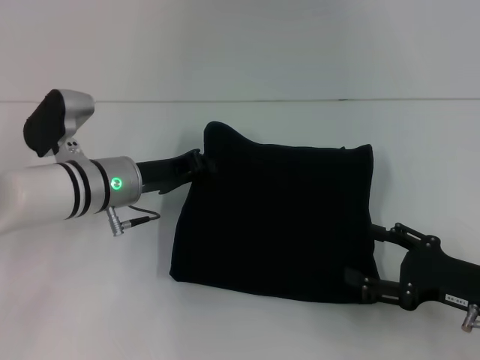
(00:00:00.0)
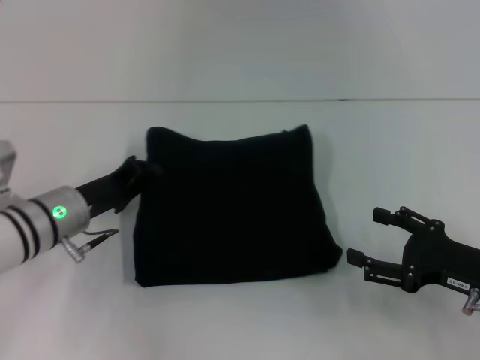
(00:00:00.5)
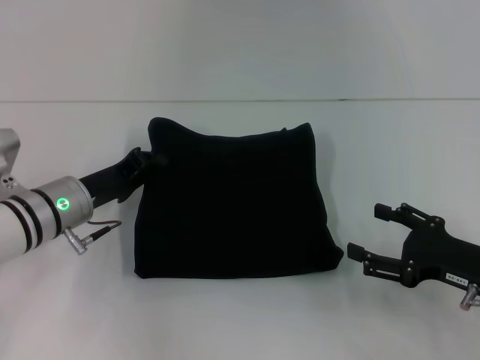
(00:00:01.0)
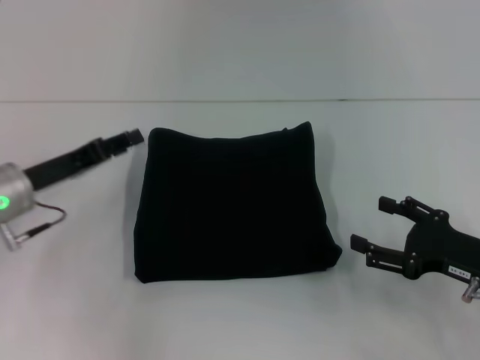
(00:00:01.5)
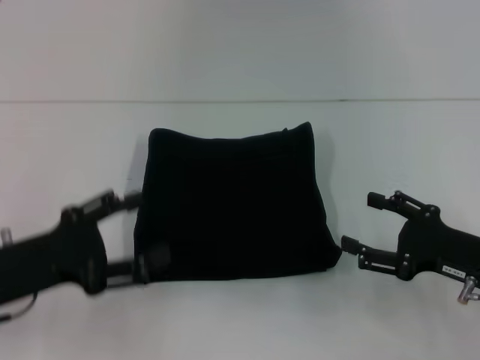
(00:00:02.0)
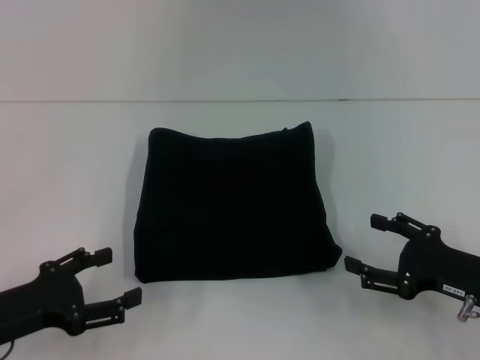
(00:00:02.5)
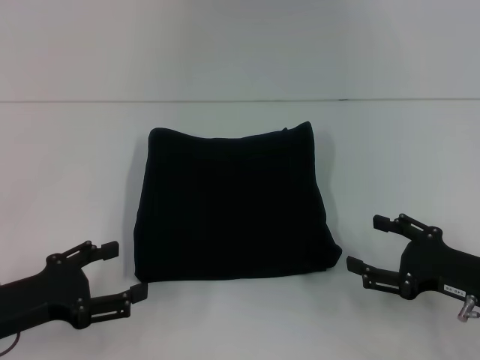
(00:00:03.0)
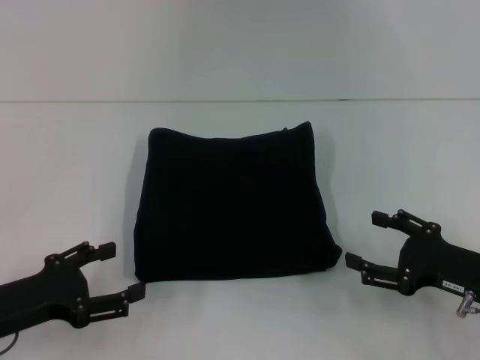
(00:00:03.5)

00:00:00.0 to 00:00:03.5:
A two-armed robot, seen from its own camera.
00:00:00.0 to 00:00:02.0: The left gripper travels backward and to the left by approximately 15 cm, and opens its fingers.
00:00:02.0 to 00:00:03.5: The grippers stay close to where they were, moving slightly.

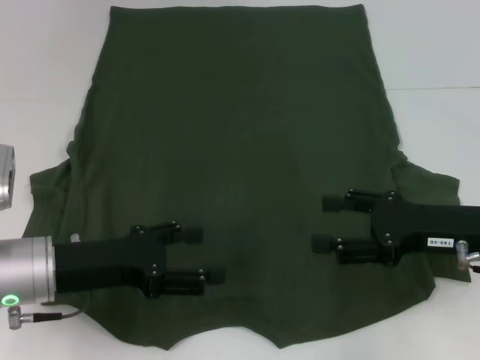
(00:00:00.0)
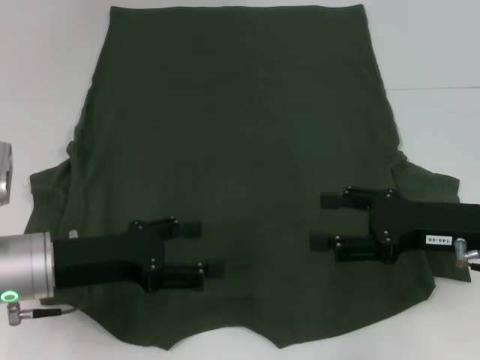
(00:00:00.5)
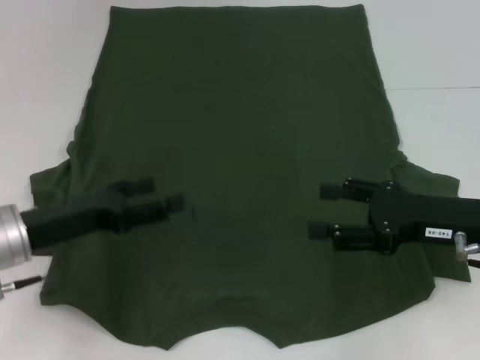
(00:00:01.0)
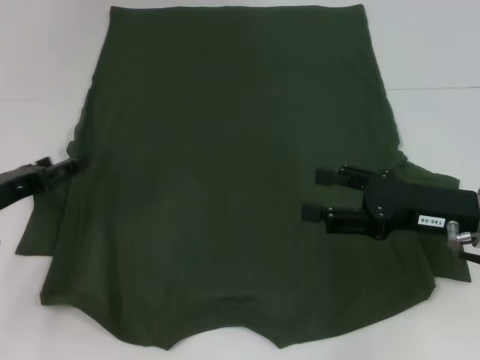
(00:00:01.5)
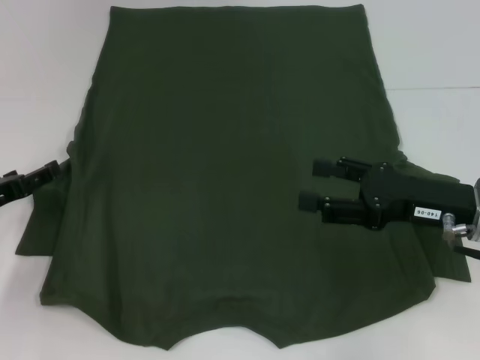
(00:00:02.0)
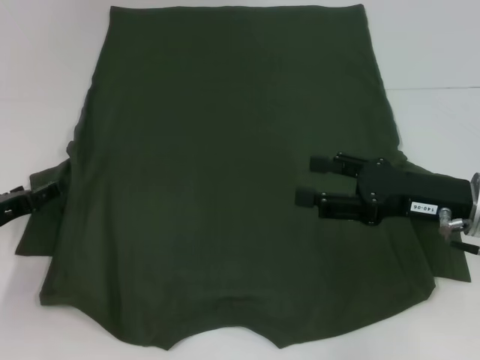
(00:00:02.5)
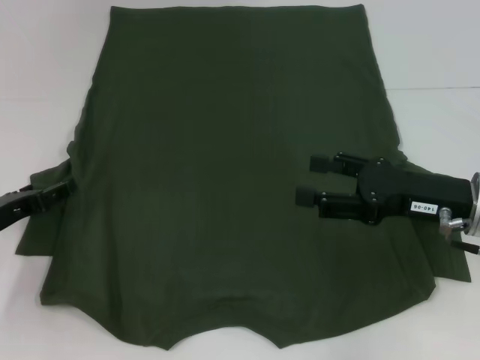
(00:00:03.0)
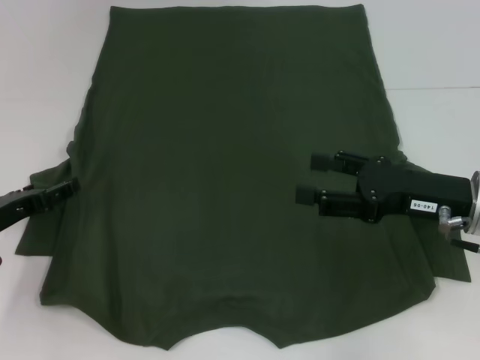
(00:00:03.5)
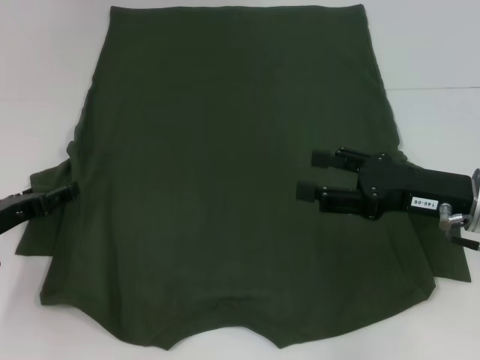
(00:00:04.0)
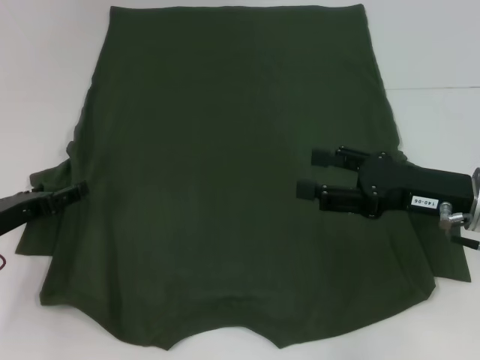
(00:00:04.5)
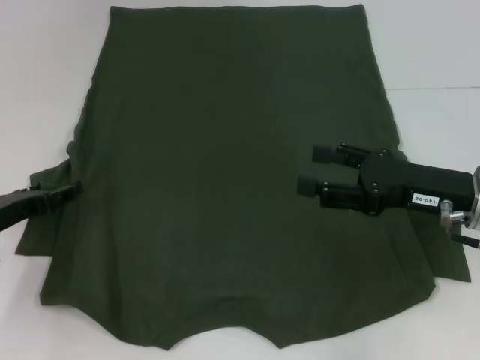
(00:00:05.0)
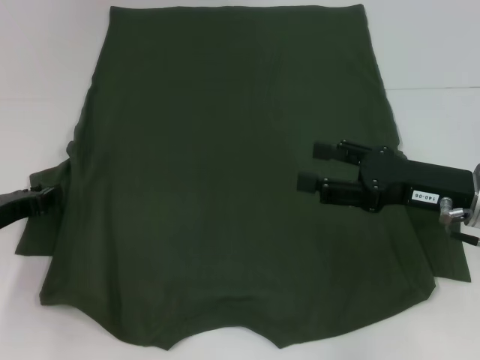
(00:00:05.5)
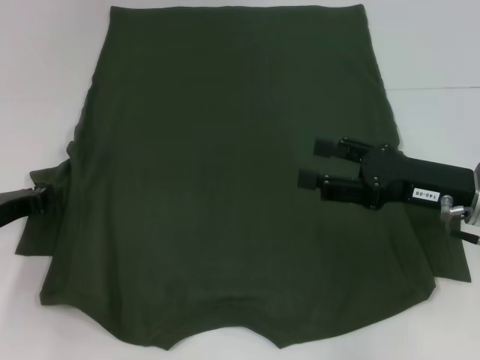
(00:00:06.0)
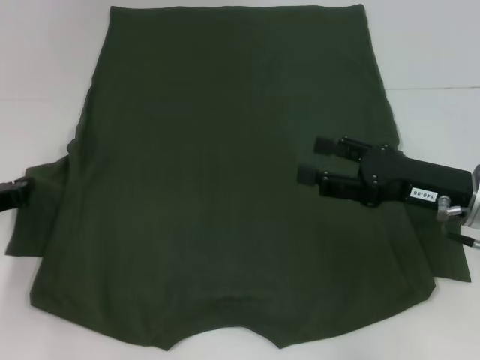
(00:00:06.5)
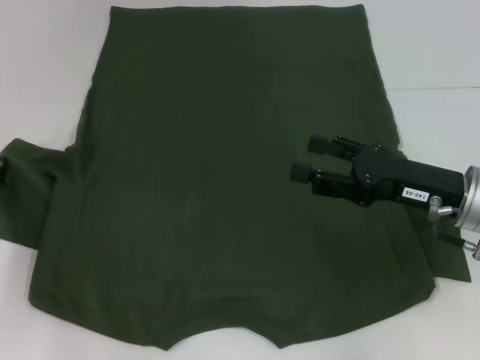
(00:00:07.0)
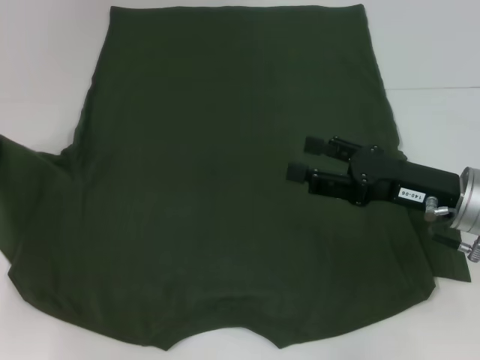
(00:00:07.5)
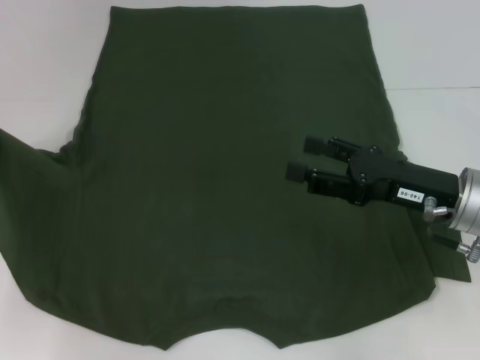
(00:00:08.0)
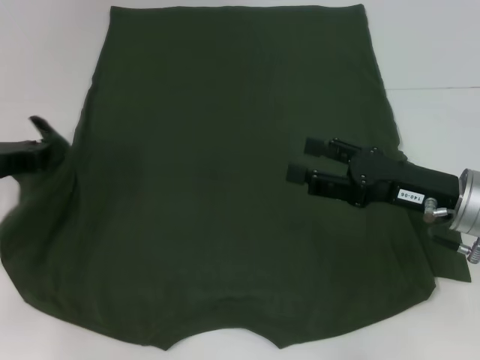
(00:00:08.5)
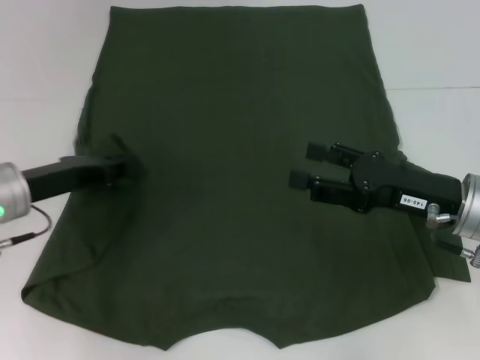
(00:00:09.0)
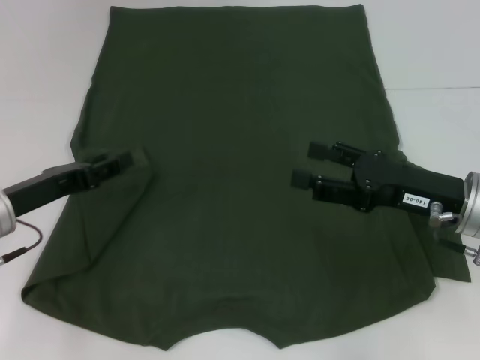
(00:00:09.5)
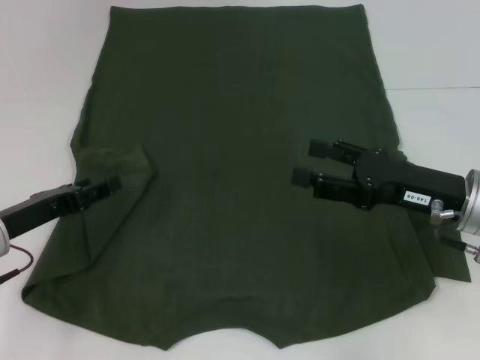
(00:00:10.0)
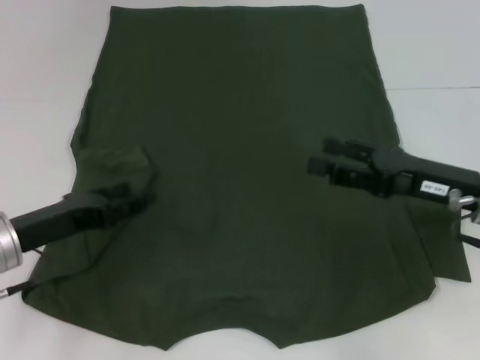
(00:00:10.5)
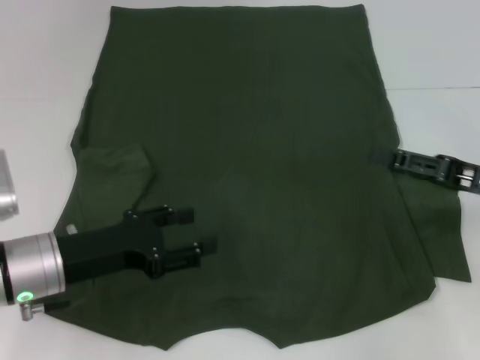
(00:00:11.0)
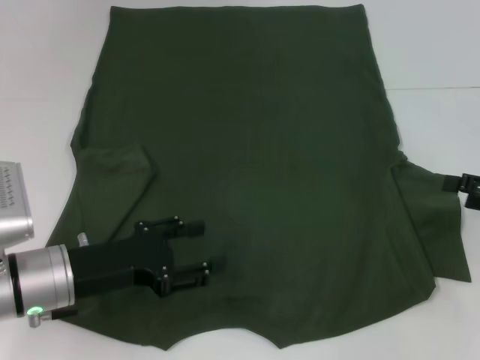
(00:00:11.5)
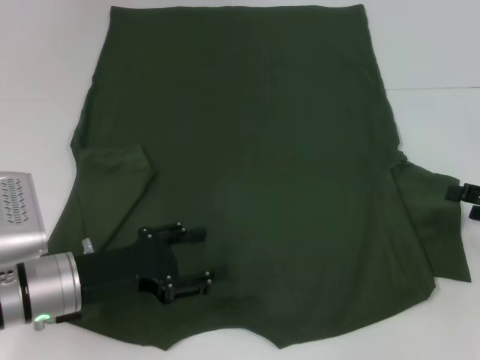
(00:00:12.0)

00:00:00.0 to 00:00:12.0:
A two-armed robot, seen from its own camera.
Step, 00:00:00.0 to 00:00:09.0: Fold the bottom left sleeve with your left hand.
00:00:00.0 to 00:00:02.0: The left gripper travels to the left by roughly 10 cm.
00:00:02.0 to 00:00:04.0: The grippers stay close to where they were, moving slightly.
00:00:04.0 to 00:00:06.0: The left gripper closes.
00:00:06.0 to 00:00:08.0: The left gripper moves approximately 5 cm.
00:00:08.0 to 00:00:10.0: The left gripper is displaced to the right and backward by roughly 10 cm, and opens its fingers.
00:00:10.0 to 00:00:12.0: The left gripper is displaced to the right by about 5 cm, while the right gripper travels to the right by some 15 cm.

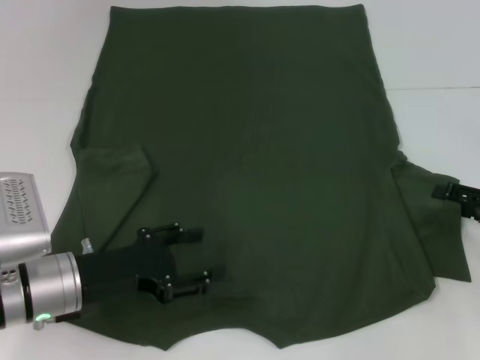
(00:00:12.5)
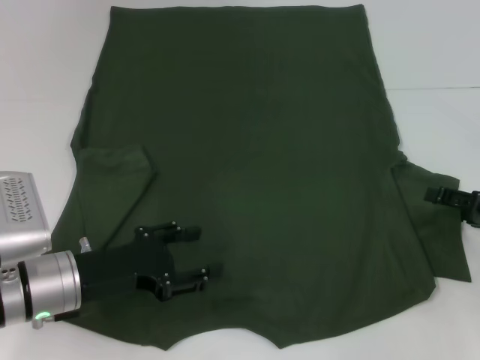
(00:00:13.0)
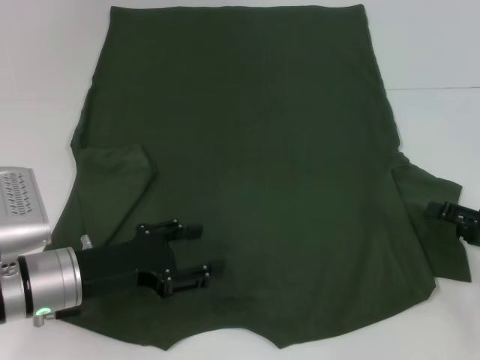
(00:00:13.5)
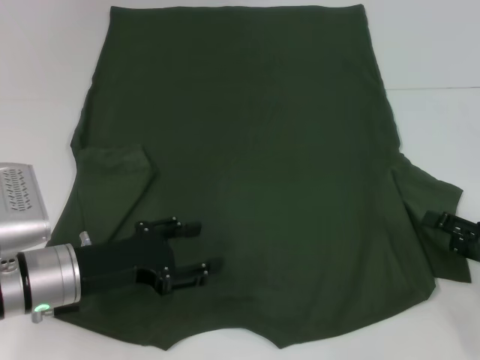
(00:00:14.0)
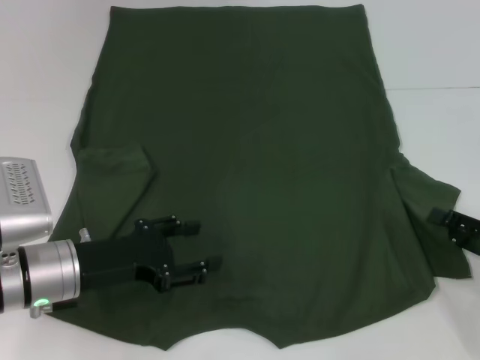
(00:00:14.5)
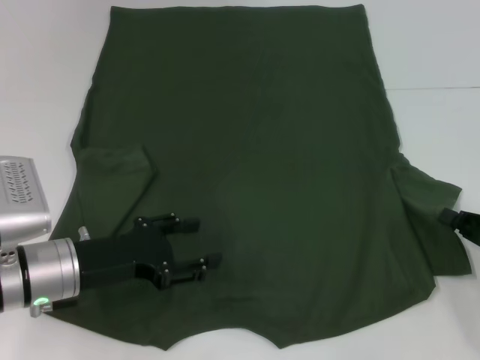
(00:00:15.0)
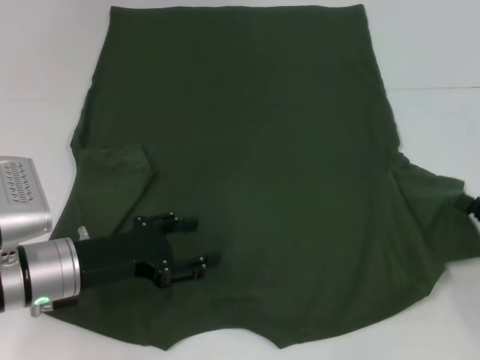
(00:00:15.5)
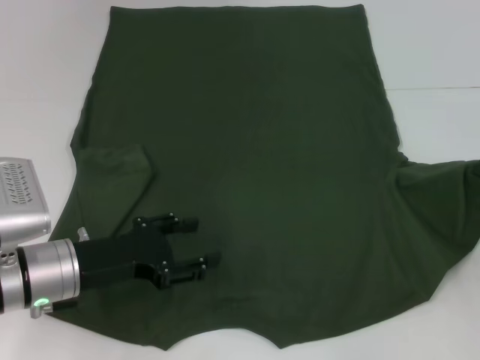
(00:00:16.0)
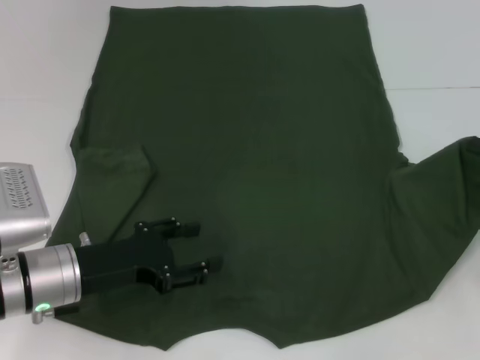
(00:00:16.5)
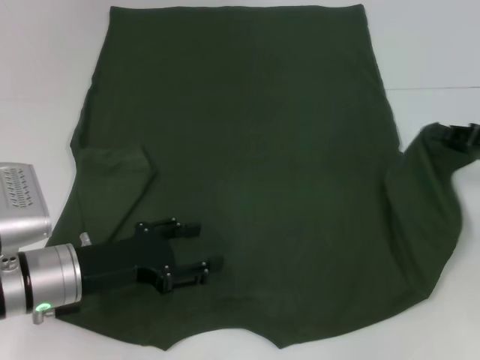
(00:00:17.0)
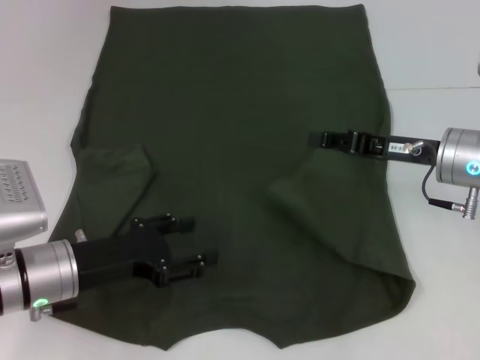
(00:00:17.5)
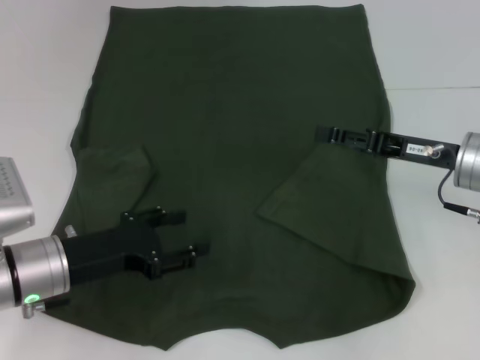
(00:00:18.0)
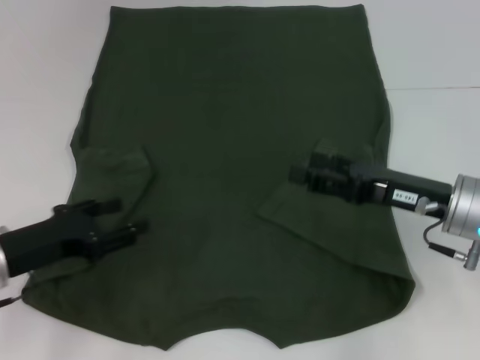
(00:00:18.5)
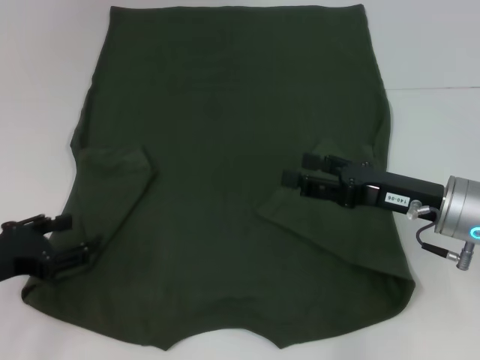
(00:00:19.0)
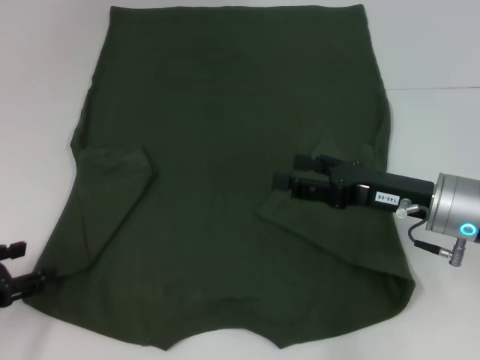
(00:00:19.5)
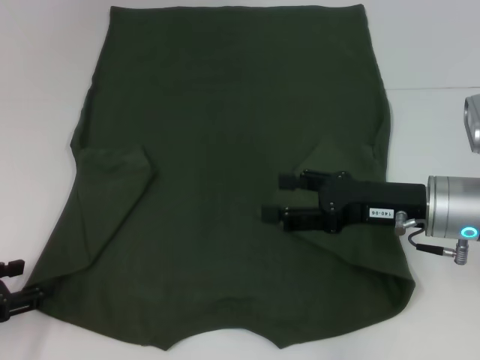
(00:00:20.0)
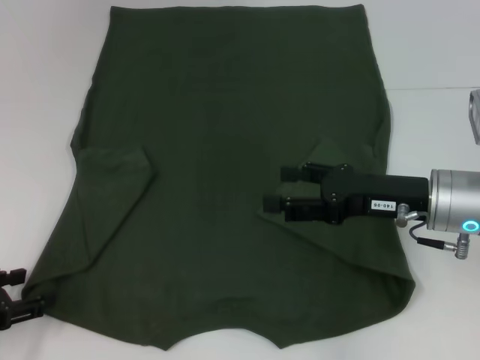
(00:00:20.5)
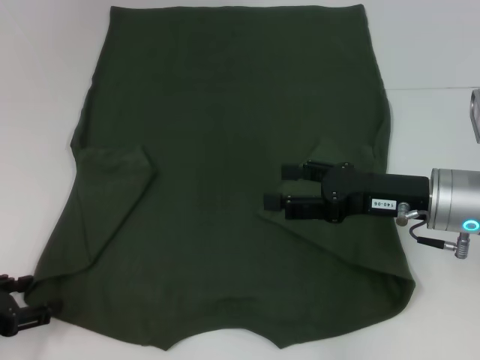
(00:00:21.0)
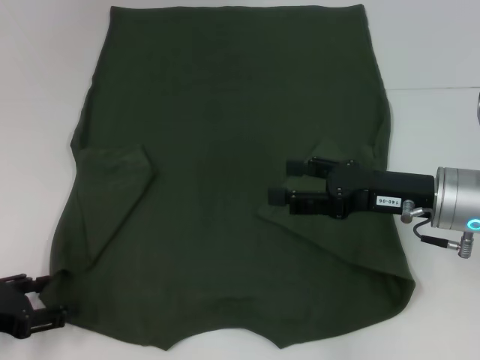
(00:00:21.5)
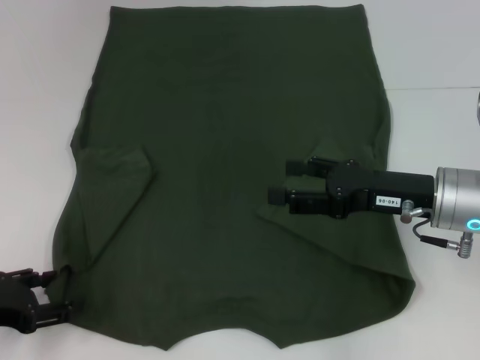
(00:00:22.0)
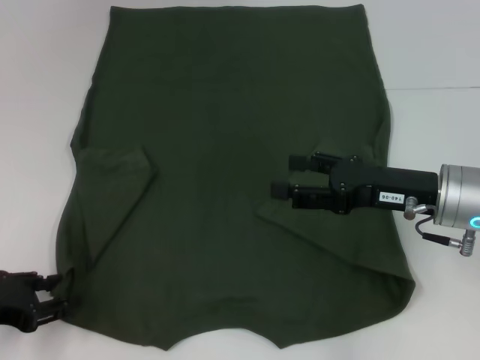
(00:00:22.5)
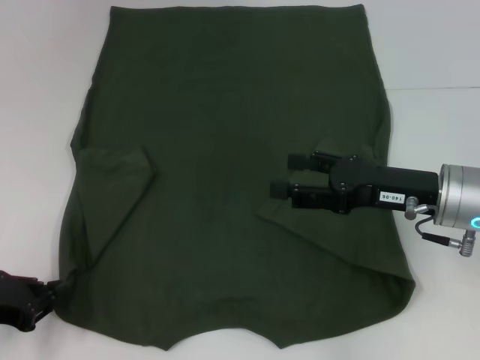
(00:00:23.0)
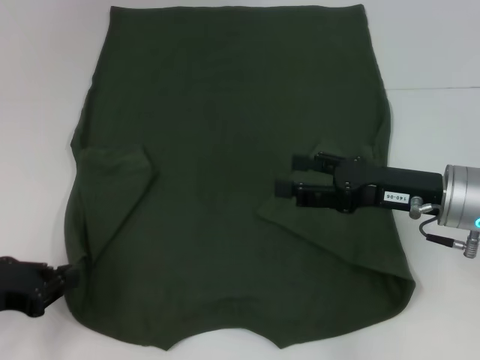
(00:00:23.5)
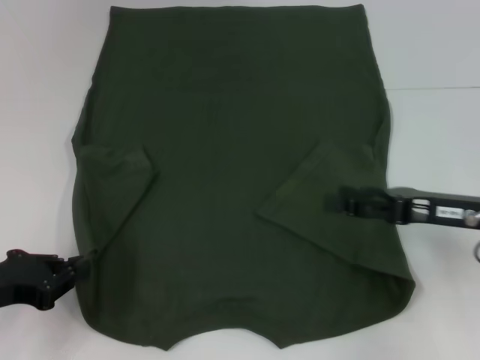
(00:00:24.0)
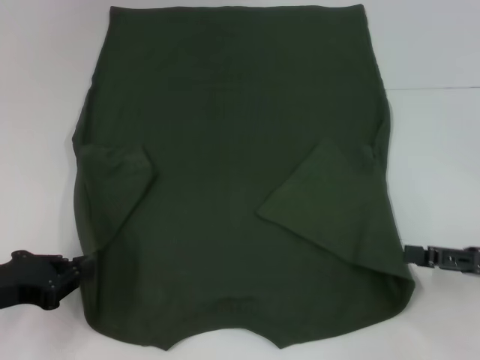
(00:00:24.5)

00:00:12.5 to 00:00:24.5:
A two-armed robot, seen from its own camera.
Step, 00:00:12.5 to 00:00:17.5: Fold the bottom right sleeve with your right hand.
Step, 00:00:18.0 to 00:00:23.0: Grab the bottom left corner with your left hand.
00:00:12.5 to 00:00:14.5: The right gripper travels backward by some 5 cm.
00:00:14.5 to 00:00:16.5: The right gripper shifts roughly 10 cm forward and upward, and closes up.
00:00:16.5 to 00:00:18.5: The right gripper shifts about 15 cm to the left, and opens its fingers; the left gripper is displaced to the left by some 5 cm.
00:00:18.5 to 00:00:20.5: The left gripper goes approximately 5 cm to the left.
00:00:20.5 to 00:00:22.5: The grippers stay close to where they were, moving slightly.
00:00:22.5 to 00:00:24.5: The left gripper closes its fingers. The right gripper goes roughly 15 cm to the right and backward.
